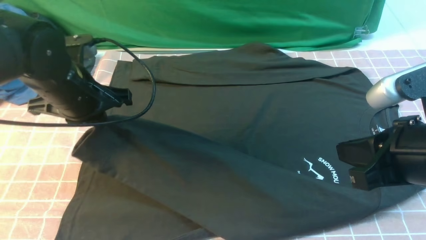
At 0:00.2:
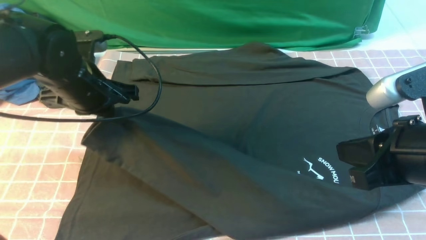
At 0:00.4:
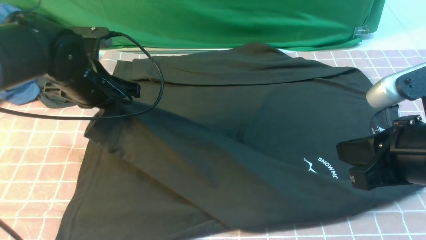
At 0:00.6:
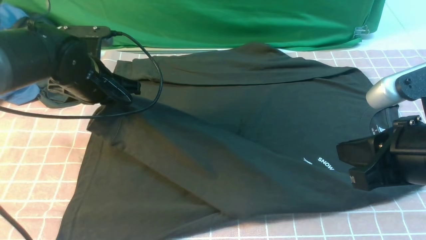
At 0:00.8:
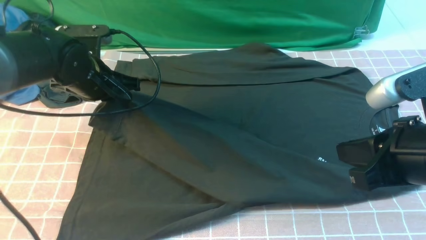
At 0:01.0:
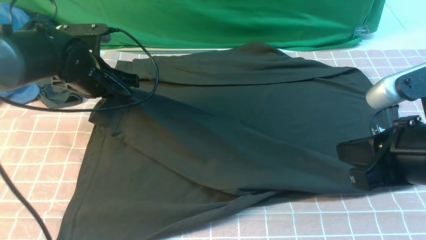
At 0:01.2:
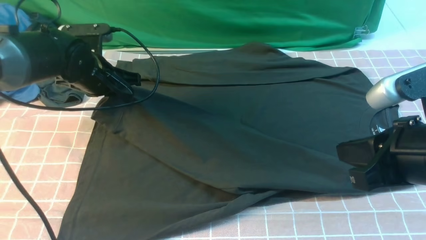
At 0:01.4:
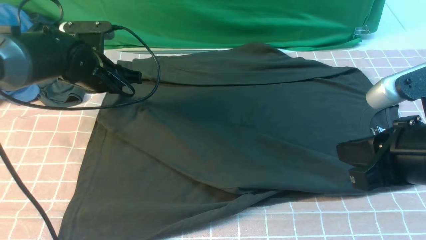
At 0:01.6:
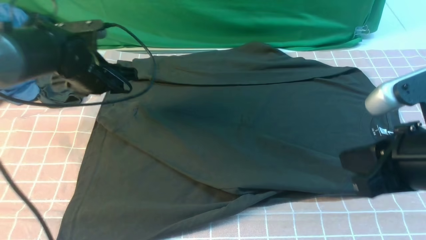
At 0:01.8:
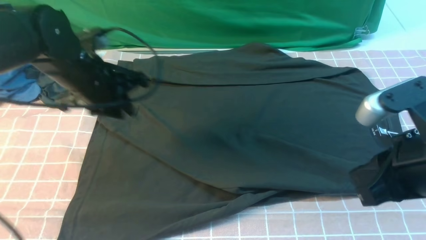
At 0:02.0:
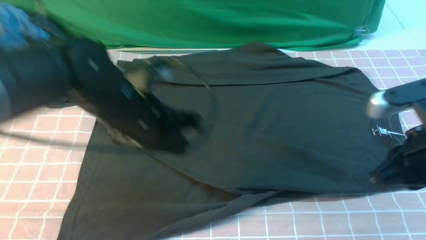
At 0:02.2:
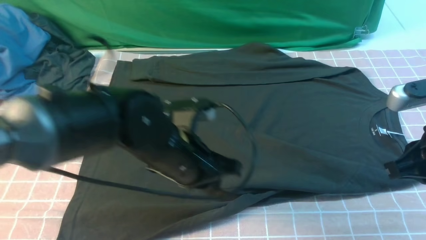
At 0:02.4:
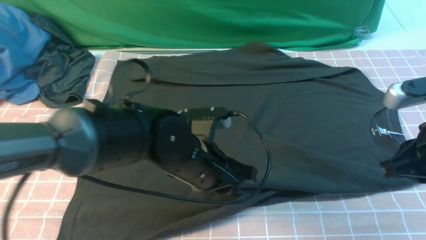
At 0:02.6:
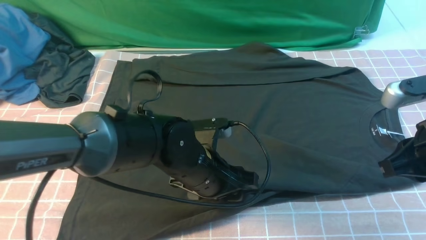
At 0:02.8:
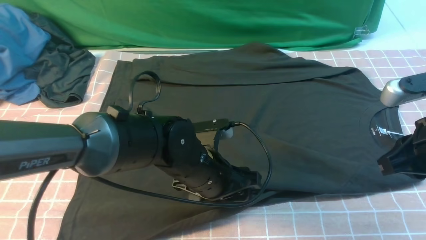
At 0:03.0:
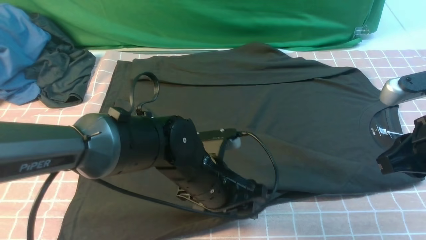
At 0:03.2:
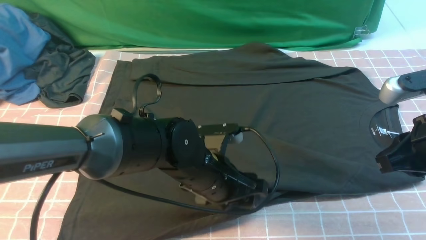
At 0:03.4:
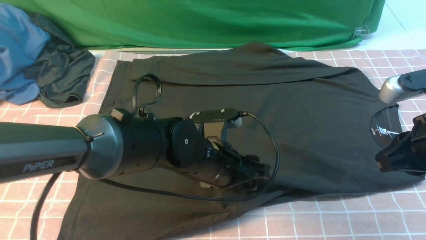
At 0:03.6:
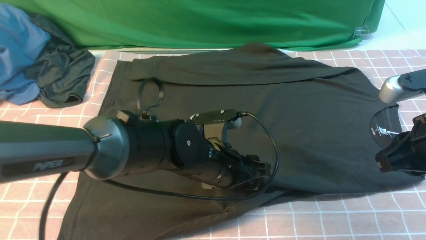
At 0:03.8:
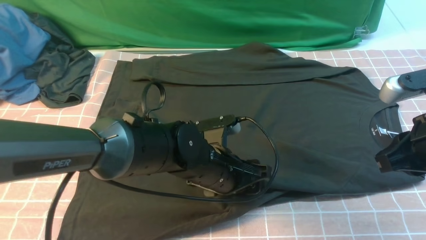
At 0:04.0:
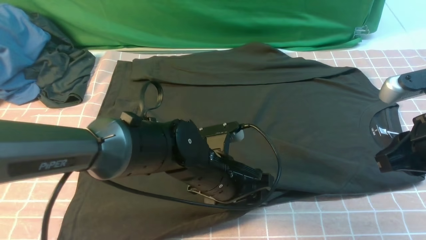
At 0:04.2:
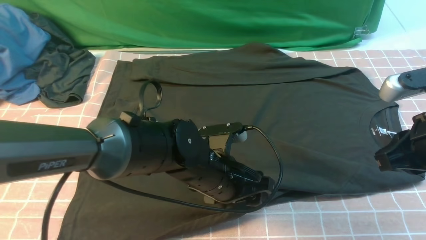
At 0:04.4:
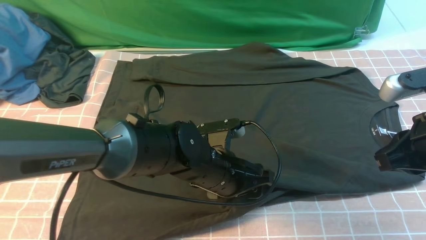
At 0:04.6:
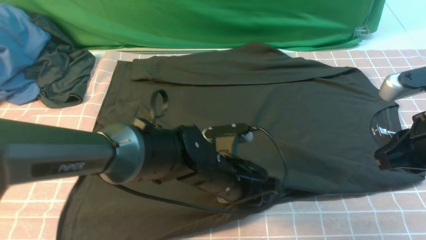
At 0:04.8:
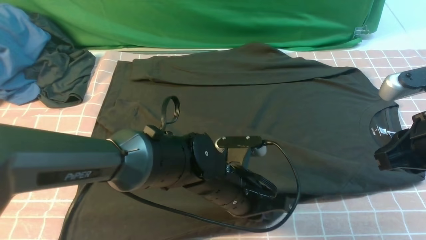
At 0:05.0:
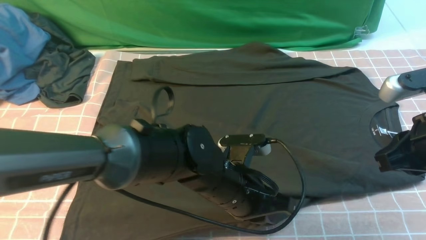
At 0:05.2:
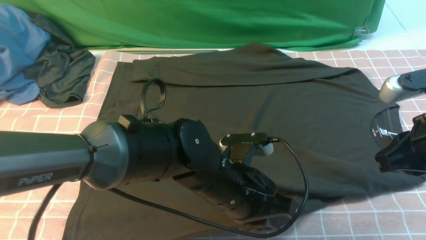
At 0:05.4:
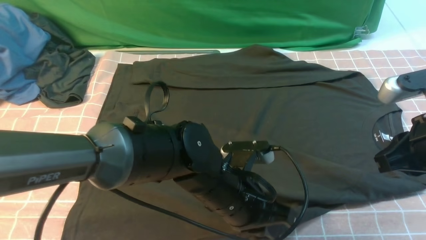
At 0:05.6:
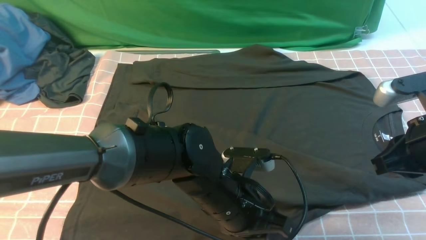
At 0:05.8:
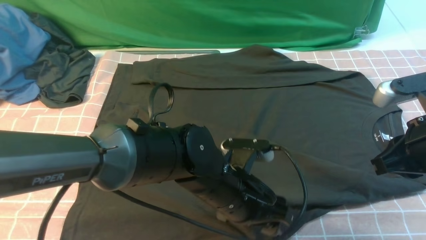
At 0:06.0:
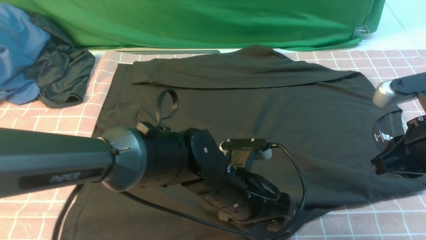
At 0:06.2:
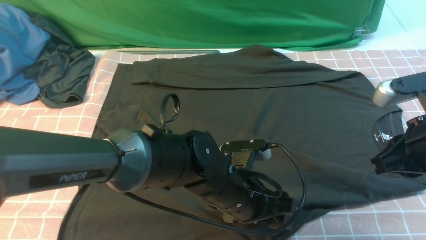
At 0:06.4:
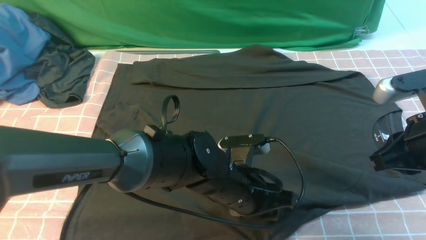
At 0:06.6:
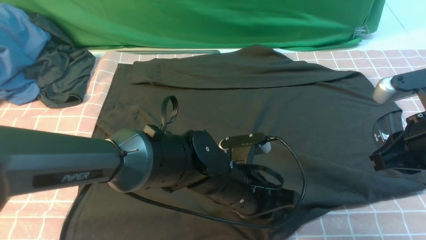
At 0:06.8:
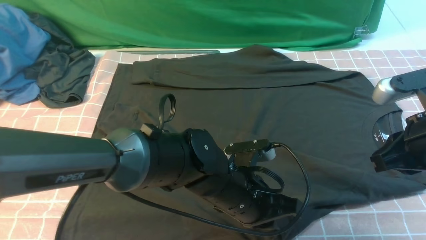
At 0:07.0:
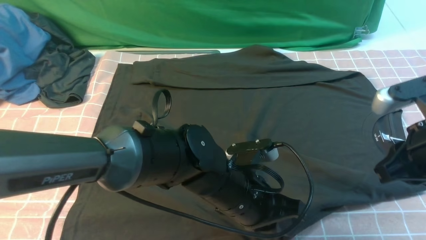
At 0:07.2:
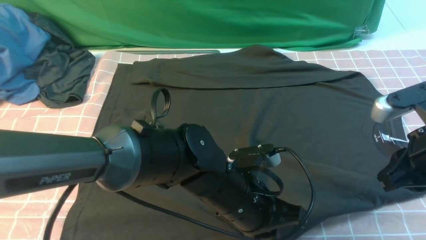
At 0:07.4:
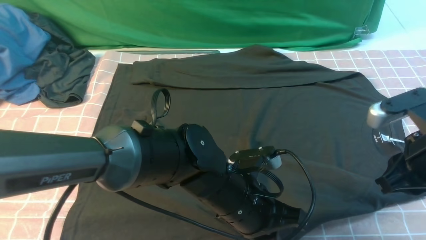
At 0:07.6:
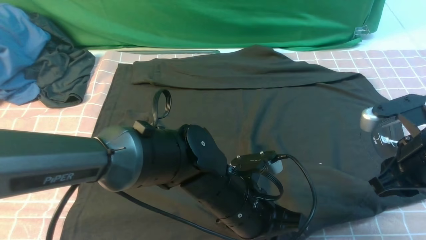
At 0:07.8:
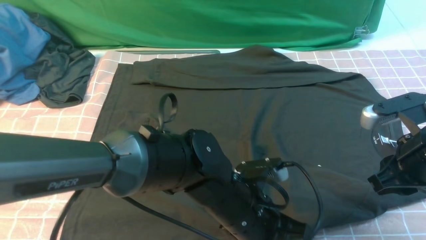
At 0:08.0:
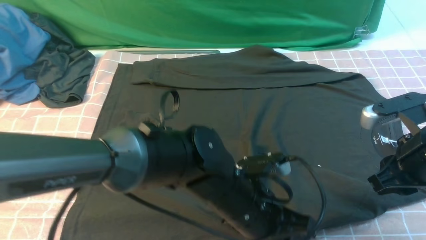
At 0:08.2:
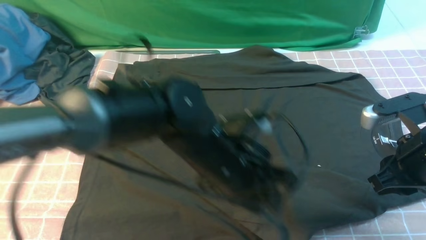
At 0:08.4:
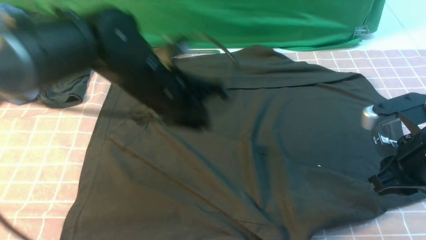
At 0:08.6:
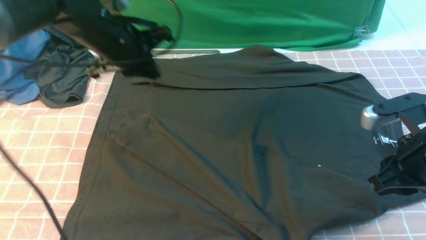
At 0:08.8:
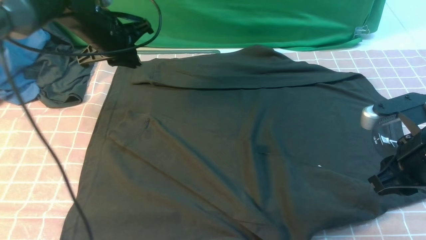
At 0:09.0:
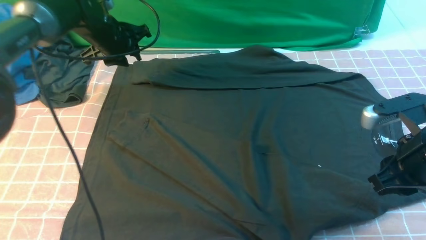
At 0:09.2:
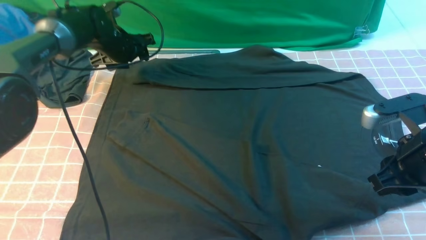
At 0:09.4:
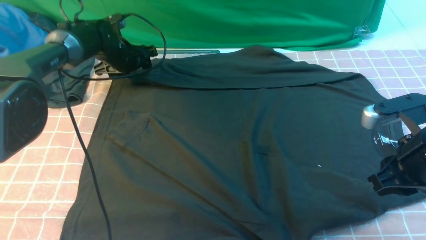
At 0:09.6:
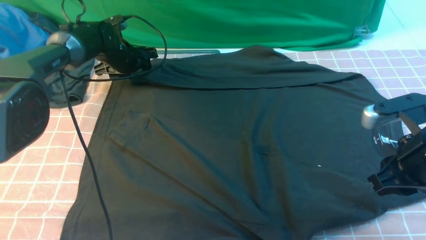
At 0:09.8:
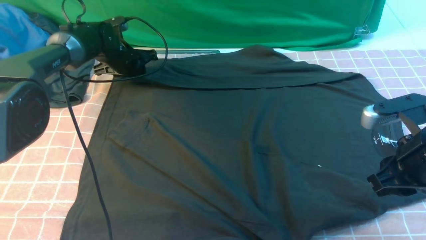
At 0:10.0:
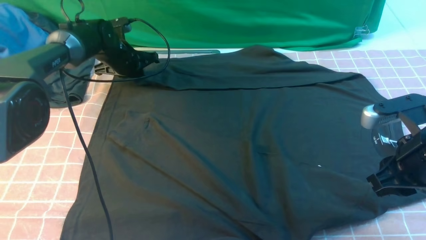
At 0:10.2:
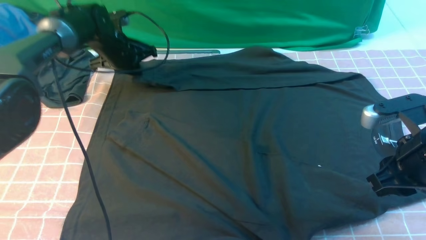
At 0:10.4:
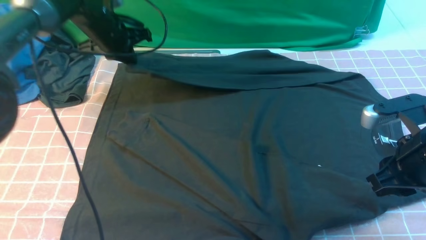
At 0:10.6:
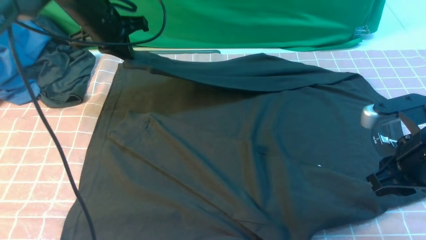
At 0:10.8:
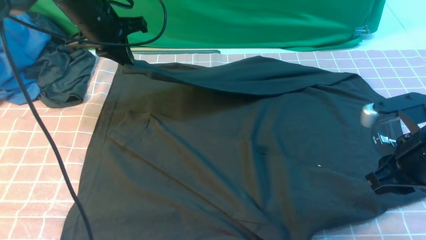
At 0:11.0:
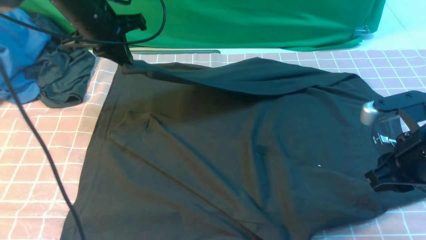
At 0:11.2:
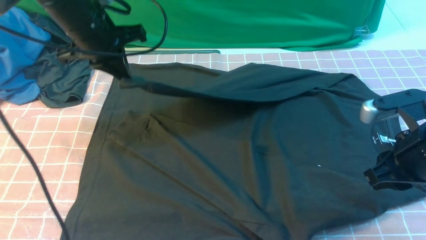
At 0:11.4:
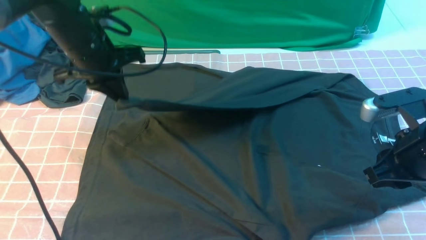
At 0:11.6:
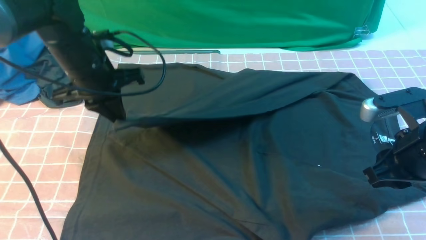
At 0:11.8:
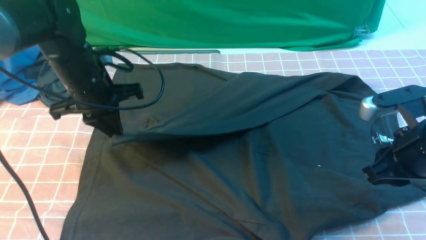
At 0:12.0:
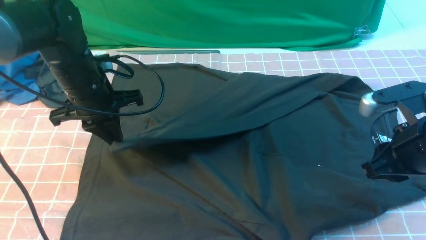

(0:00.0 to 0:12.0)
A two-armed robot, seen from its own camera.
Step, 0:01.6 - 0:10.0: use the left arm to clamp the cuff farthest from it.
0:00.0 - 0:01.6: The left gripper heads forward, covering some 5 cm, and opens.
0:01.6 - 0:03.0: The right gripper shifts by about 5 cm. Meanwhile the left gripper is displaced to the right and backward by some 25 cm, and opens up.
0:03.0 - 0:04.4: There are only small adjustments of the grippers.
0:04.4 - 0:06.0: The left gripper closes and opens again.
0:06.0 - 0:07.6: The right gripper opens its fingers, while the left gripper closes up.
0:07.6 - 0:09.0: The left gripper moves forward and to the left, roughly 40 cm, and opens.
0:09.0 - 0:10.4: The left gripper travels downward and back again, some 5 cm each way, and closes up.
0:10.4 - 0:12.0: The left gripper shifts approximately 15 cm backward.

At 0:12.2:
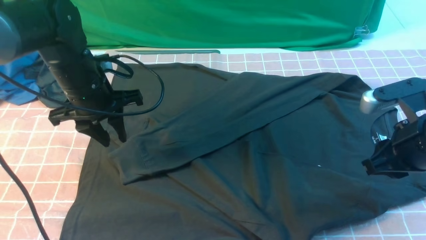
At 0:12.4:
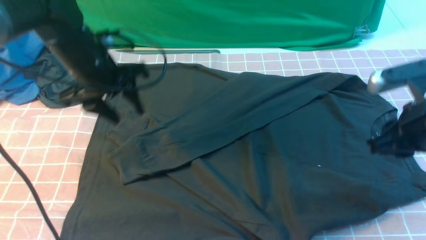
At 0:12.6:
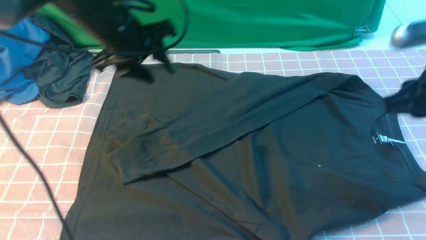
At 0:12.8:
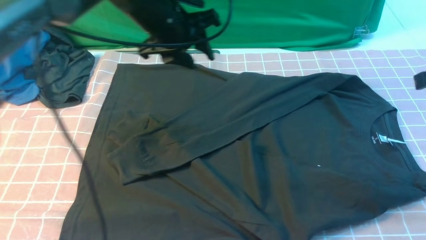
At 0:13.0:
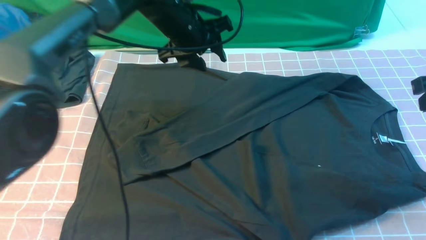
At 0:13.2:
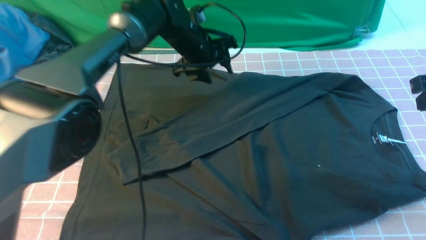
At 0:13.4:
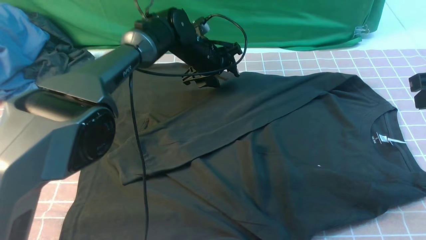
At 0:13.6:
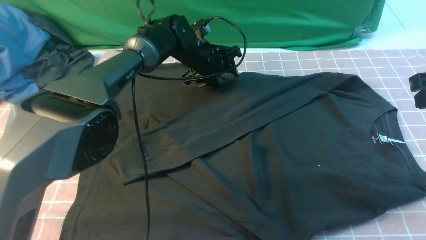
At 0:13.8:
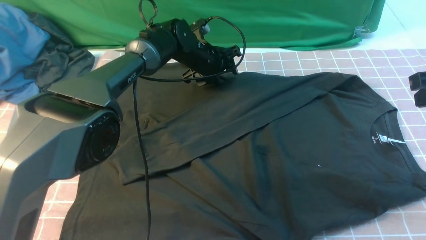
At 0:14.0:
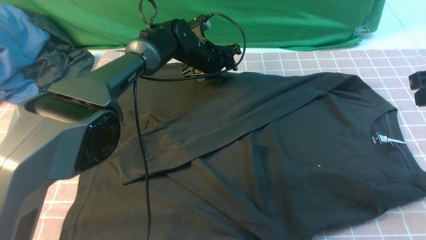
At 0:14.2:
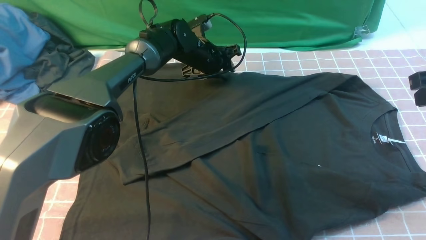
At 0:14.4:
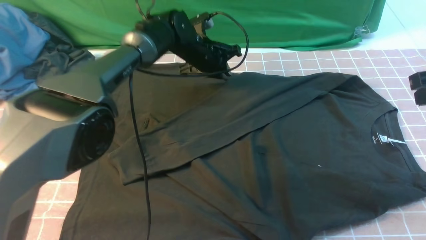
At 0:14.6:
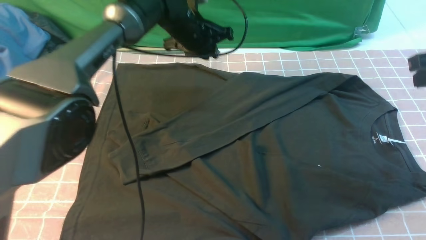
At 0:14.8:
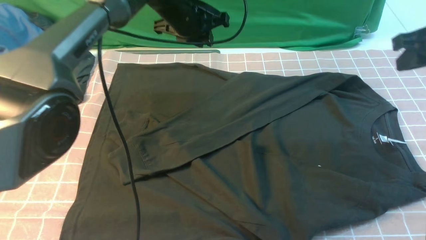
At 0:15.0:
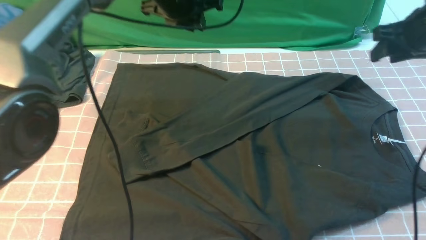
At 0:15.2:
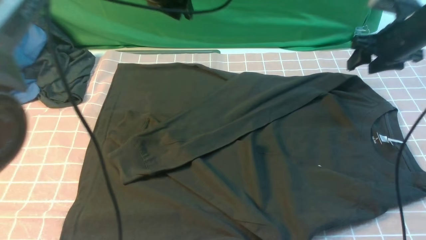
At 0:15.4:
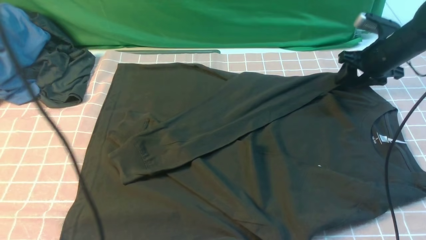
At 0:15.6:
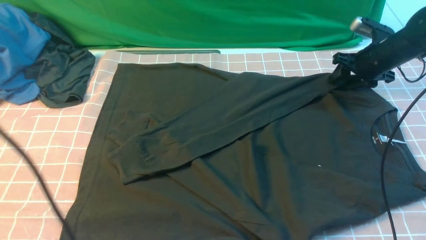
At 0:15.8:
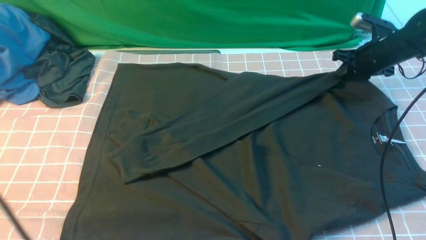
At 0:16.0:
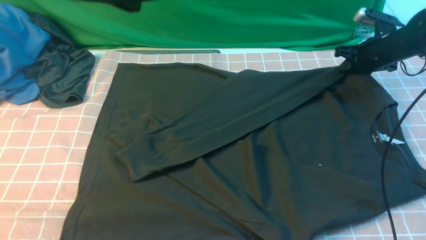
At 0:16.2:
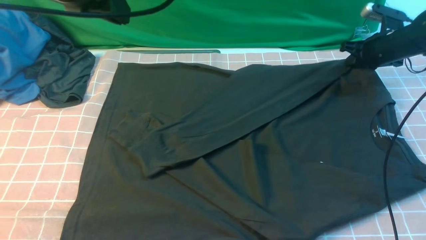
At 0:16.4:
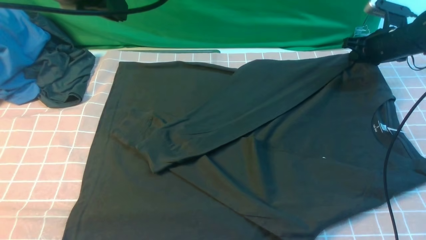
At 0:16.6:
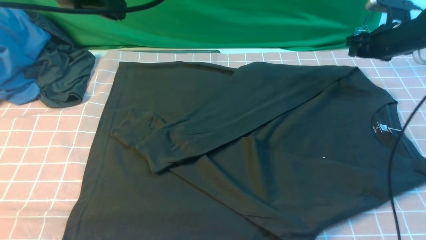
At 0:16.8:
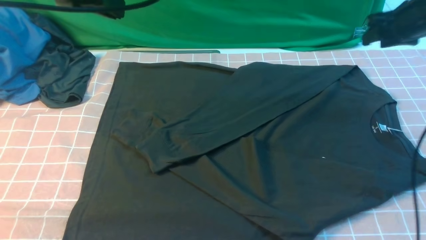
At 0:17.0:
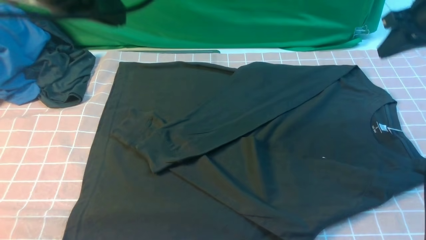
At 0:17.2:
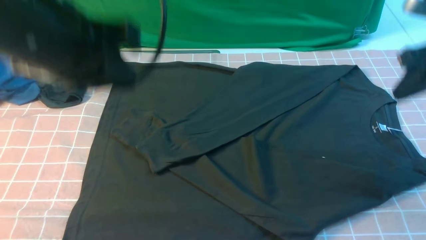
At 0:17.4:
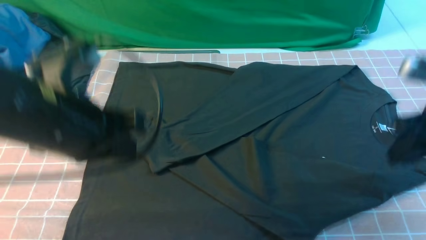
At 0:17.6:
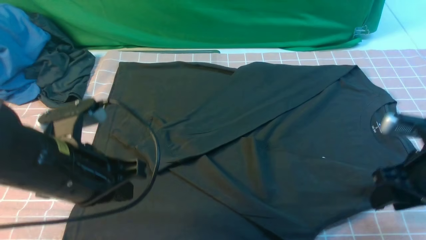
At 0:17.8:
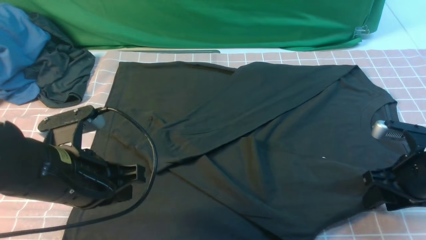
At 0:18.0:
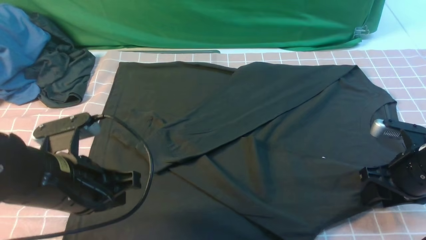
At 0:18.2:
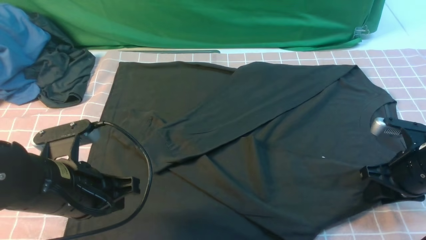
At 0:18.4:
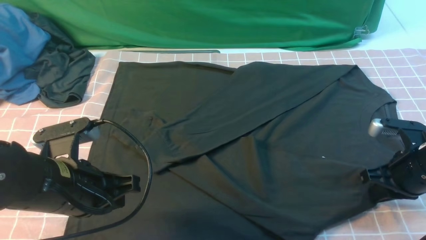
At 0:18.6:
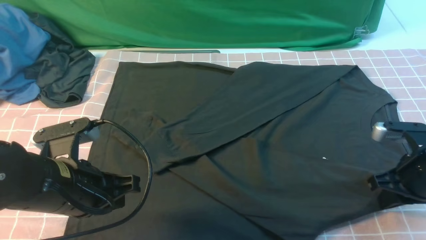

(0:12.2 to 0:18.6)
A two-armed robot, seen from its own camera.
0:12.2 - 0:13.8: The right gripper moves to the right and upward, approximately 10 cm, and closes. The left gripper goes roughly 25 cm forward, to the right and downward, and opens its fingers.
0:13.8 - 0:15.4: The right gripper is displaced forward and downward by roughly 25 cm, and opens up, while the left gripper heads upward and backward, covering approximately 30 cm, and closes up.
0:15.4 - 0:17.0: The right gripper heads upward and backward, covering roughly 15 cm, and closes. Meanwhile the left gripper goes roughly 15 cm backward.
0:17.0 - 0:18.6: The left gripper shifts approximately 20 cm downward. Meanwhile the right gripper moves backward and downward, roughly 20 cm, and opens and closes again.